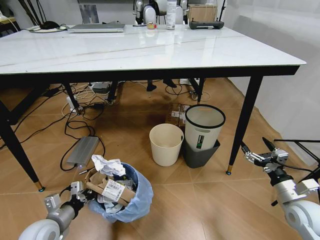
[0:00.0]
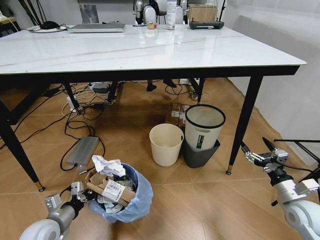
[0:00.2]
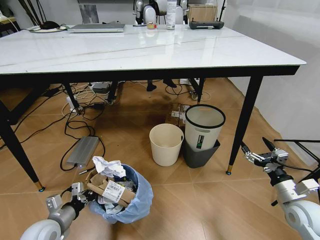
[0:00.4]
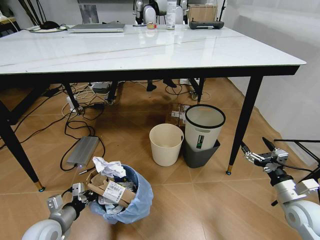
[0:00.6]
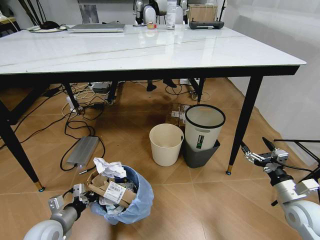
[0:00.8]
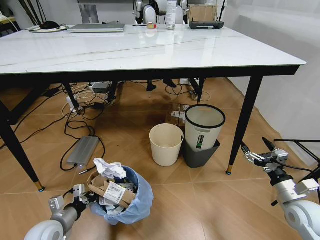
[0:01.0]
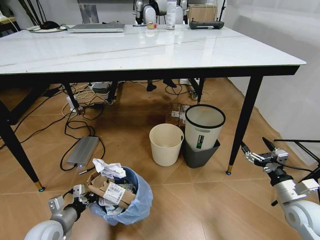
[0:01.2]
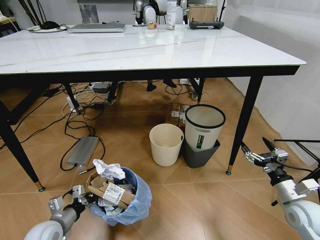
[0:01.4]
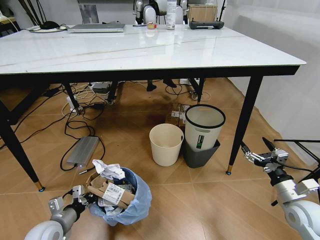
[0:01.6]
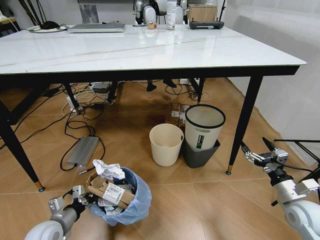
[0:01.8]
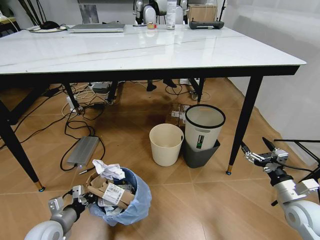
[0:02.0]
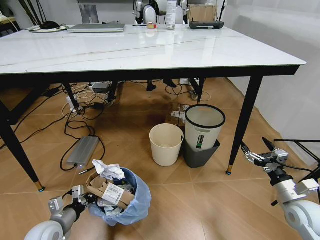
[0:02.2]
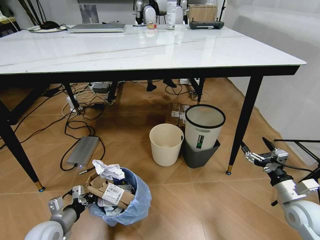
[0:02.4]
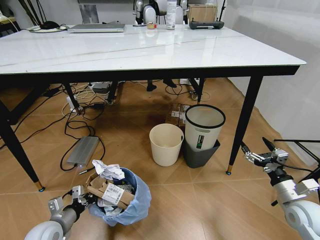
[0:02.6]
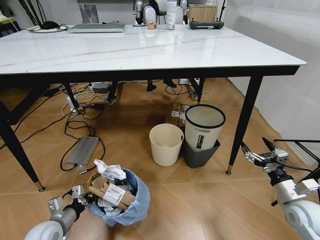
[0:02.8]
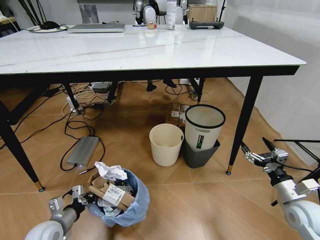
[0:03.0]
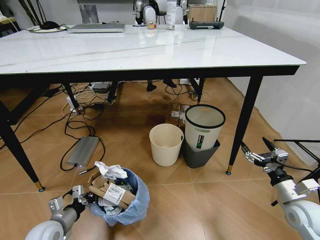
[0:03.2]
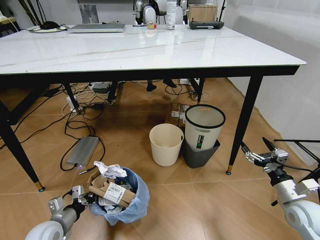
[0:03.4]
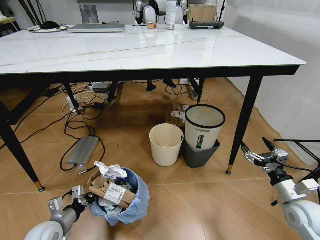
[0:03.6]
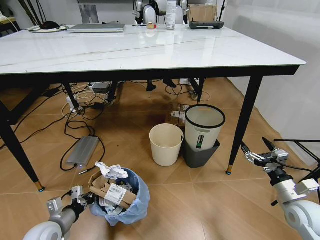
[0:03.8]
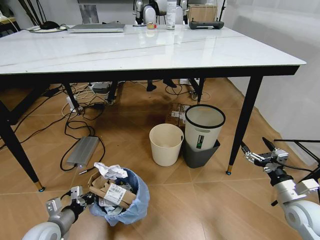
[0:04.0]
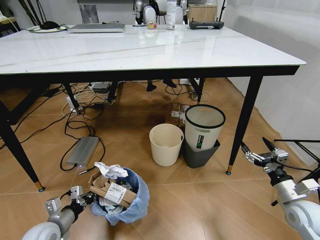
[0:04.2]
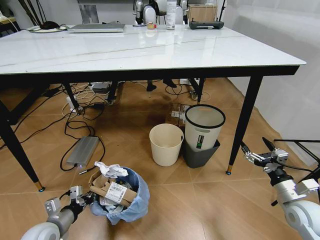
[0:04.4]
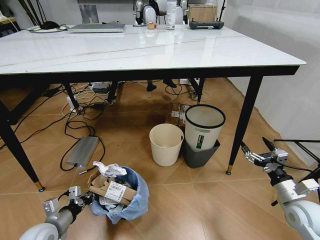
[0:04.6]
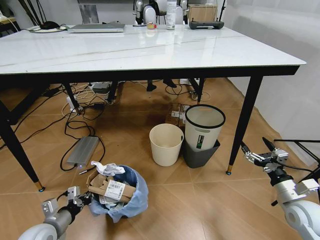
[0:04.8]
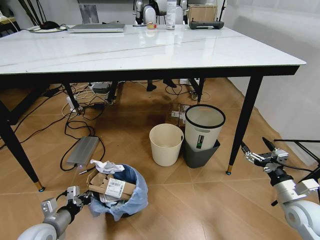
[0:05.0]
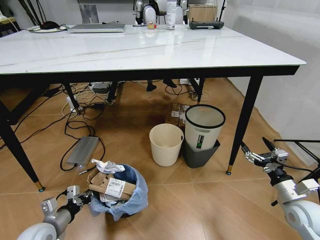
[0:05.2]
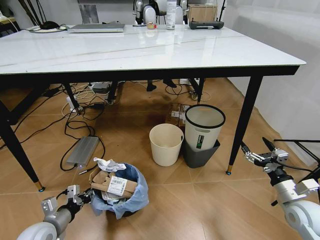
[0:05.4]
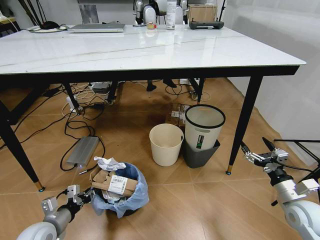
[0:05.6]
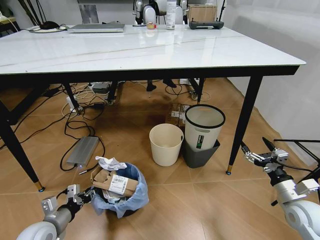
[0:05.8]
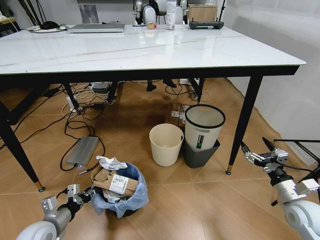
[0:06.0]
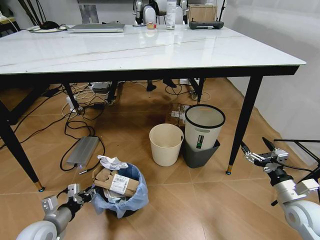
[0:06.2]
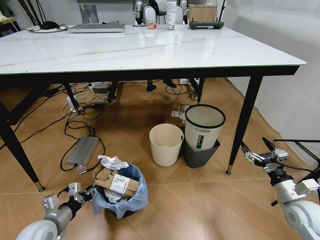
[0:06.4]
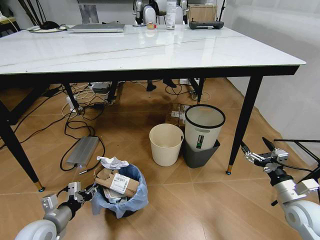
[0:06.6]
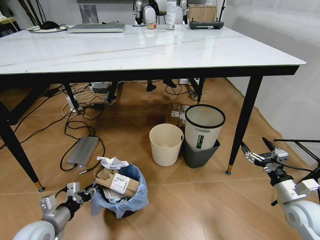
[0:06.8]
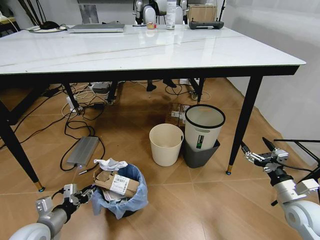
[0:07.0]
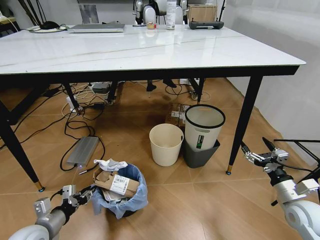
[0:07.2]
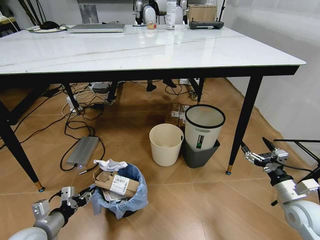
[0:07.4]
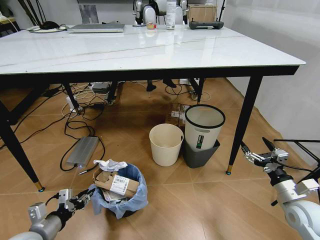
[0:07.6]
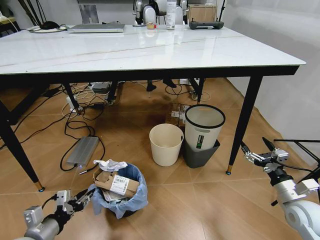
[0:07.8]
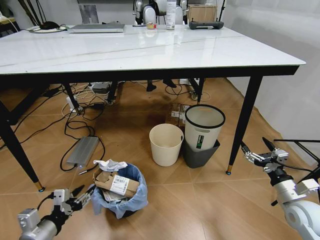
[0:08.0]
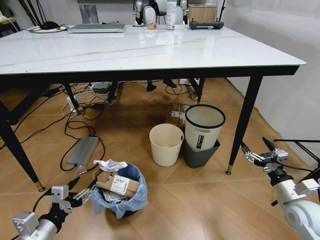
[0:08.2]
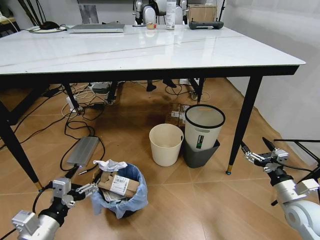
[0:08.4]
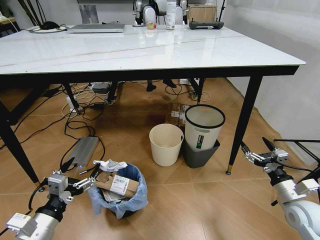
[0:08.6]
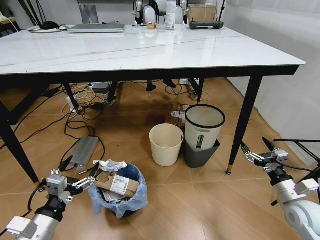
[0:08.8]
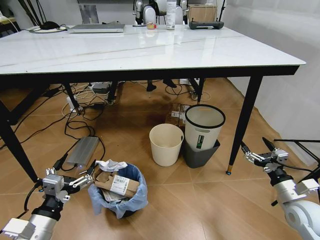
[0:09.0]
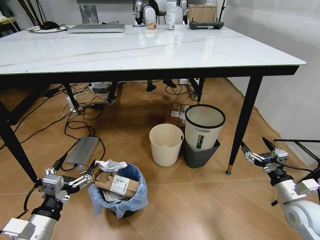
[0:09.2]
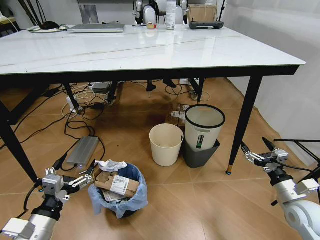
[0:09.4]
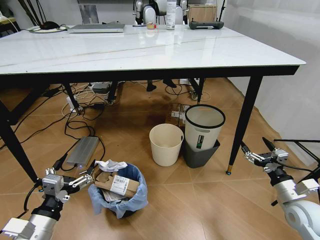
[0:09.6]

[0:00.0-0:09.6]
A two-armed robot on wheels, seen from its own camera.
Task of the whole recording: Pick up the trash bin and place the trash from the table into it.
0:00.0 to 0:01.6: The grippers make only small movements.
0:01.6 to 0:03.2: The two grippers keep their place.
0:03.2 to 0:04.8: The grippers move only a little.
0:04.8 to 0:06.4: Both grippers stay put.
0:06.4 to 0:08.0: The left gripper travels upward and backward by approximately 10 cm.
0:08.0 to 0:09.6: The left gripper opens its fingers.
